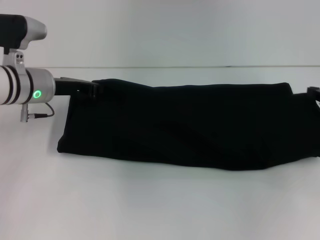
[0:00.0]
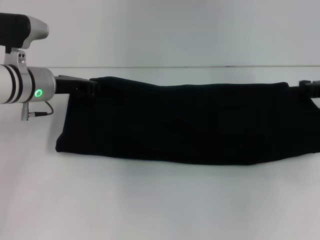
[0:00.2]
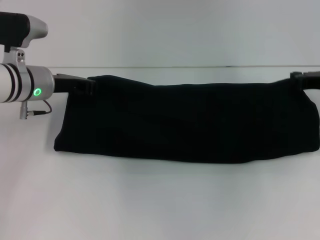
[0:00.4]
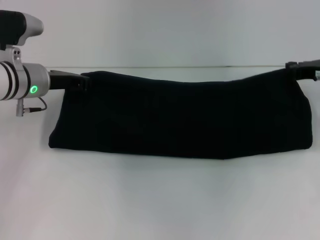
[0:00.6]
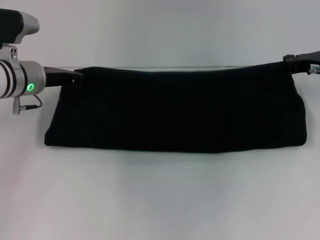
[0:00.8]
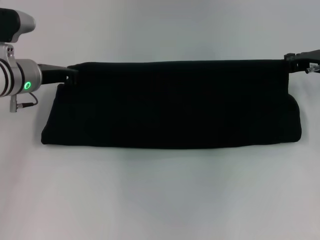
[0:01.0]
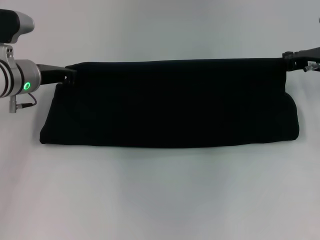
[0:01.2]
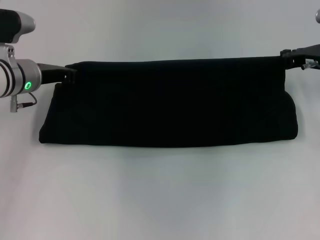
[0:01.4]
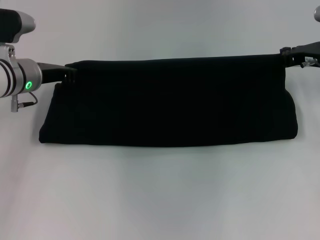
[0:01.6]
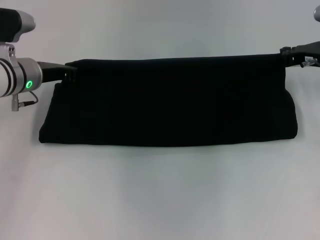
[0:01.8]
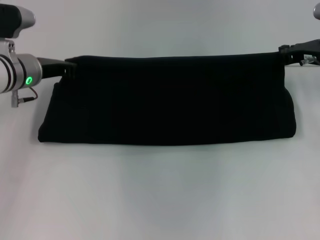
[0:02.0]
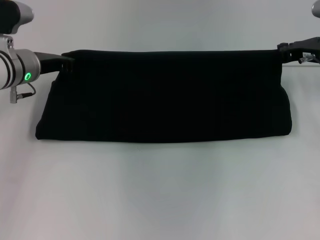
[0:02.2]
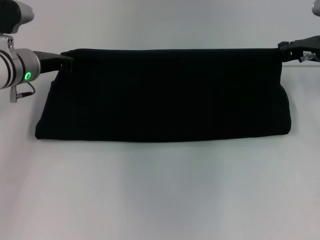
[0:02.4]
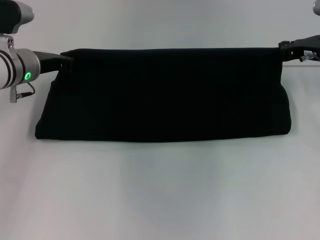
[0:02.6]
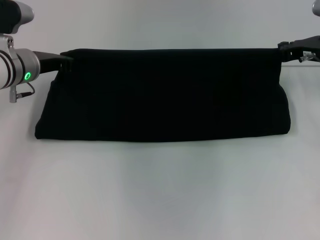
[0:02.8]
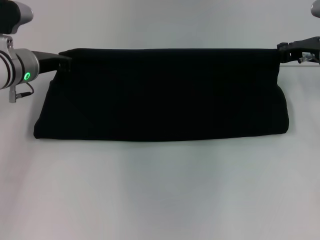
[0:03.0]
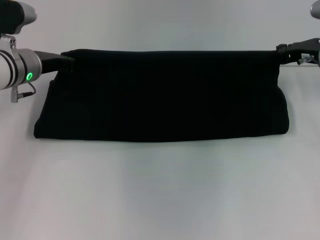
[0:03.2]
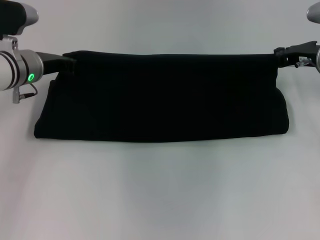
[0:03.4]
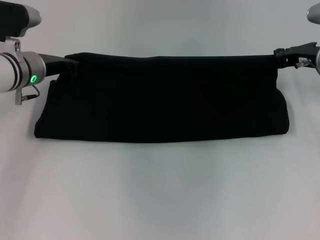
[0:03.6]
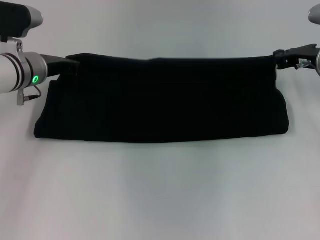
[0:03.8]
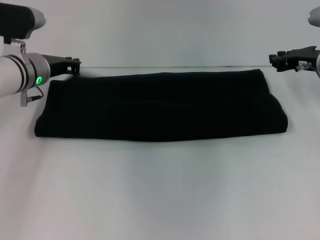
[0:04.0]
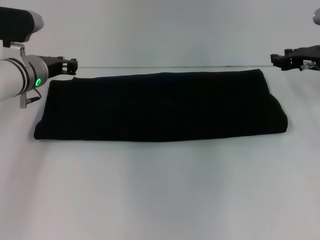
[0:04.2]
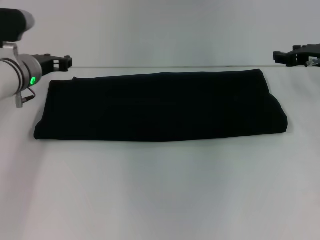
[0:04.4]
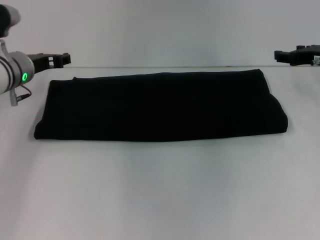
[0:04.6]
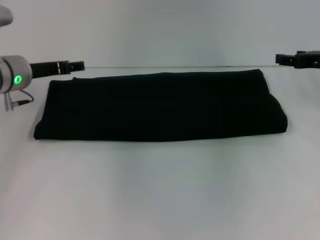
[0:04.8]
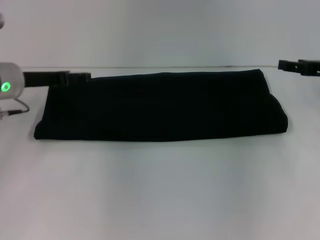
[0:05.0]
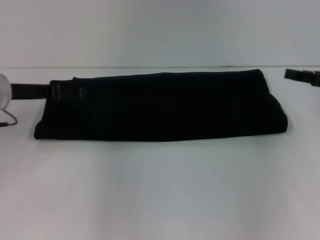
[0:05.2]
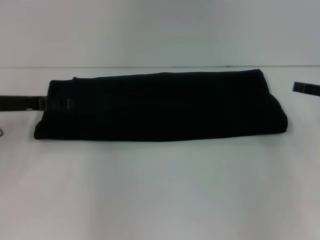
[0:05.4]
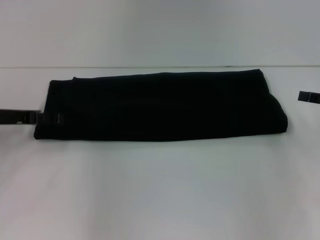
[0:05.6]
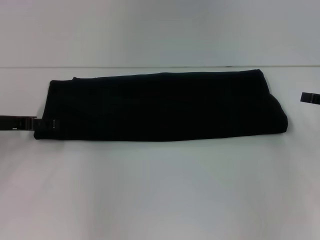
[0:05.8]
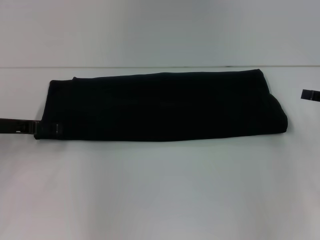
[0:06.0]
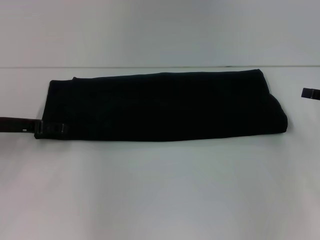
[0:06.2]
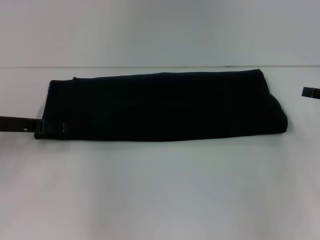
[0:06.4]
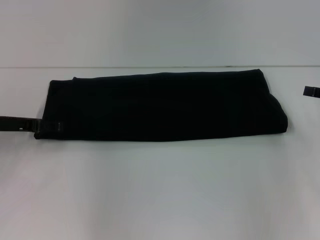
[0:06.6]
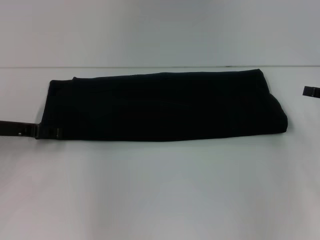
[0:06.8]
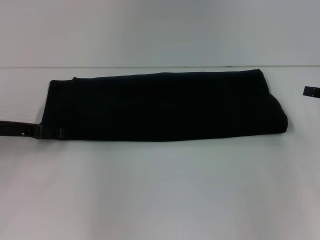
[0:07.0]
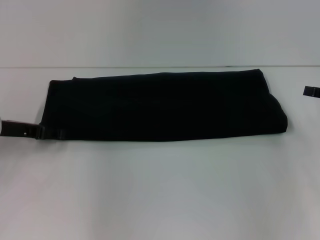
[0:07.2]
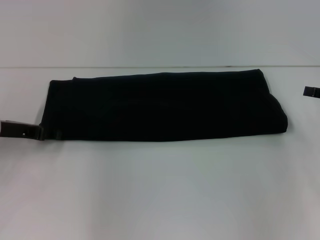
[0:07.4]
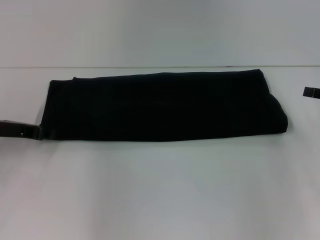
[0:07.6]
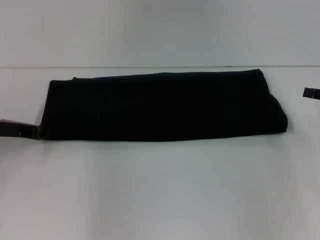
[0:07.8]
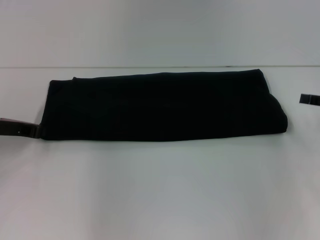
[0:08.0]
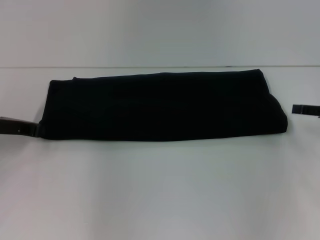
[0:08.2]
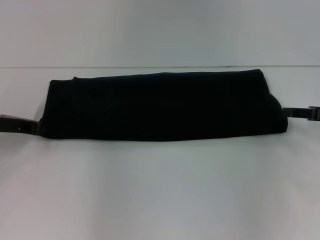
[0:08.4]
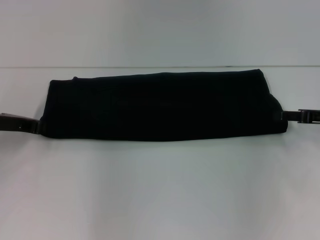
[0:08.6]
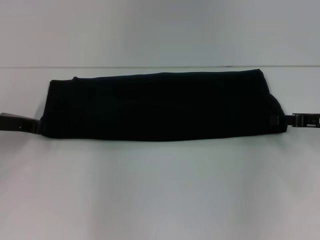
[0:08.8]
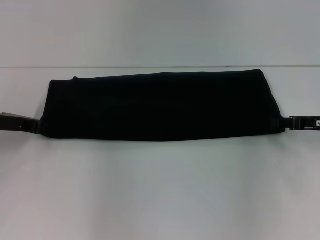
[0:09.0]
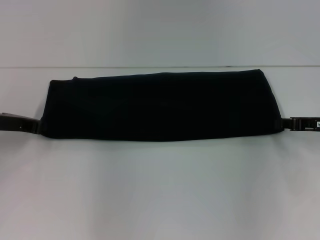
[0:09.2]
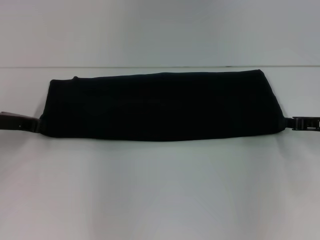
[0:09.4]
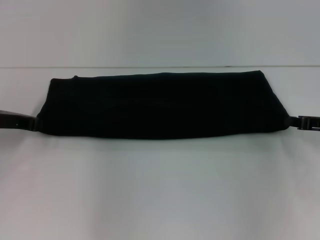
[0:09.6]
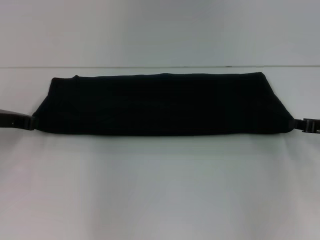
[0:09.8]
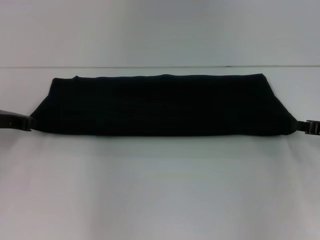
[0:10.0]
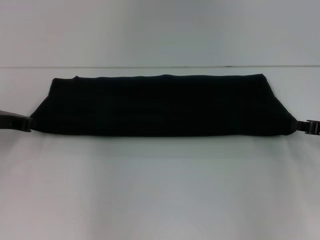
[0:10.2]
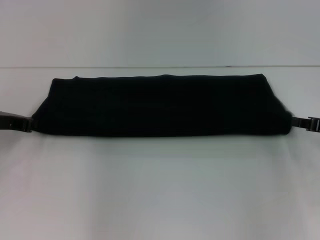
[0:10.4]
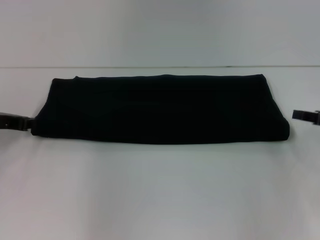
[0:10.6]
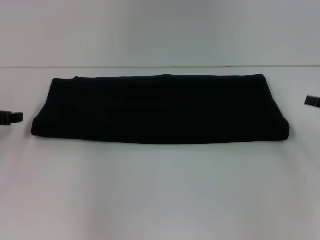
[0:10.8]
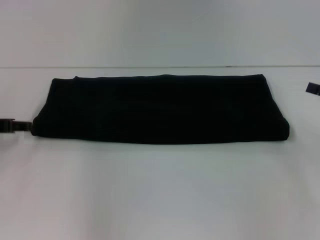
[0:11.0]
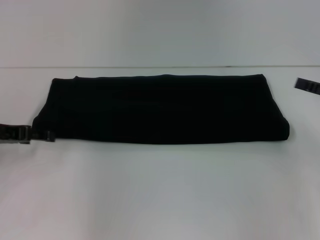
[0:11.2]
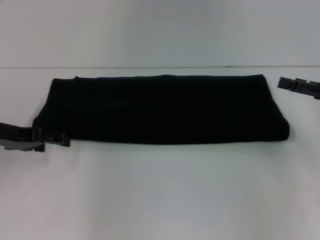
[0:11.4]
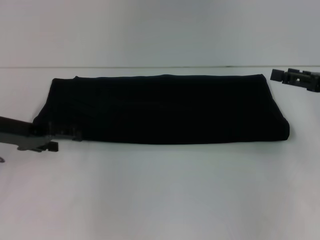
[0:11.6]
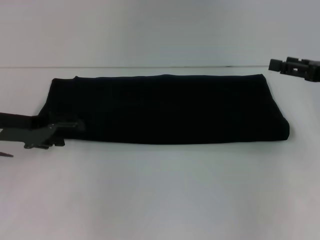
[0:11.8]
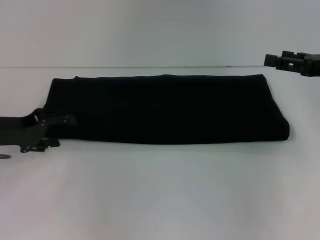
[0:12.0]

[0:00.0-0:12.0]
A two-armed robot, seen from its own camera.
Step, 0:00.0 to 0:04.0: Fold the clothes with your right hand.
0:00.0 to 0:01.6: The right gripper travels to the left and forward by approximately 10 cm.
0:01.6 to 0:03.0: The two grippers keep their place.
0:03.0 to 0:04.4: The right gripper opens.
0:04.4 to 0:06.0: The right gripper heads backward and to the right, covering approximately 15 cm; the left gripper moves backward and to the left, about 10 cm, and opens up.
0:07.6 to 0:09.0: The right gripper is displaced to the left by approximately 5 cm. The left gripper closes.
0:09.0 to 0:10.4: The right gripper closes up.
0:10.4 to 0:12.0: The left gripper opens its fingers; the right gripper travels upward by about 10 cm, and opens up.

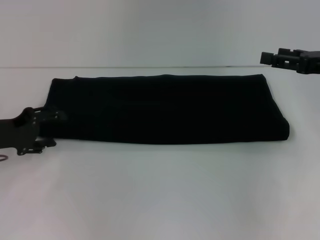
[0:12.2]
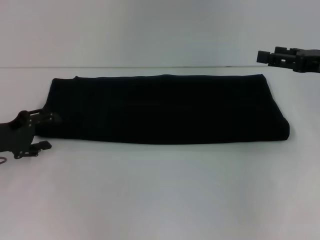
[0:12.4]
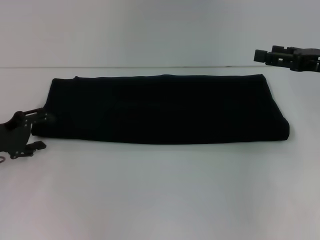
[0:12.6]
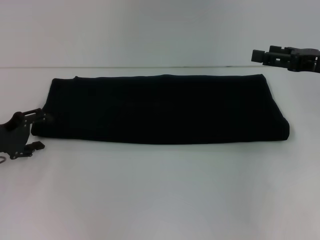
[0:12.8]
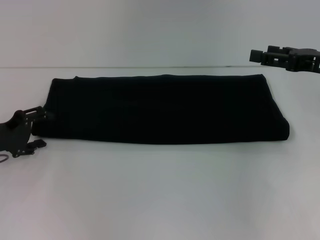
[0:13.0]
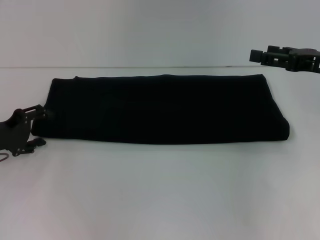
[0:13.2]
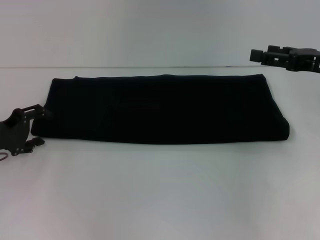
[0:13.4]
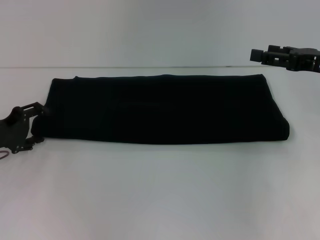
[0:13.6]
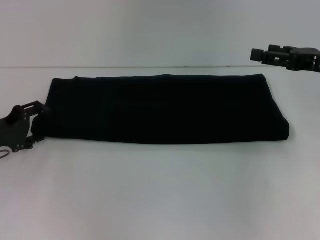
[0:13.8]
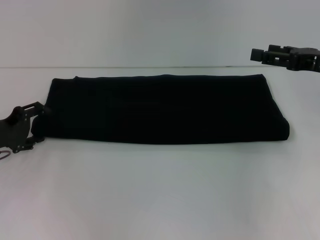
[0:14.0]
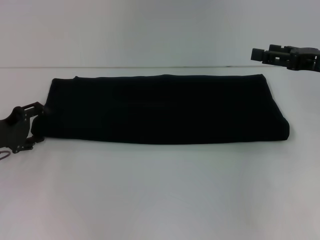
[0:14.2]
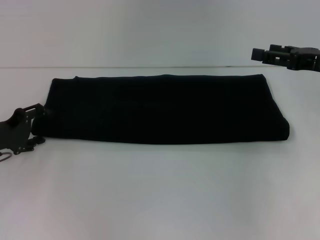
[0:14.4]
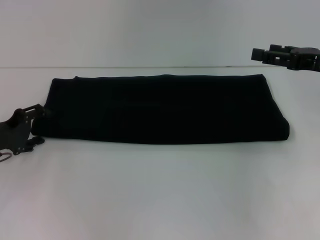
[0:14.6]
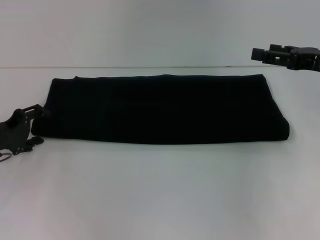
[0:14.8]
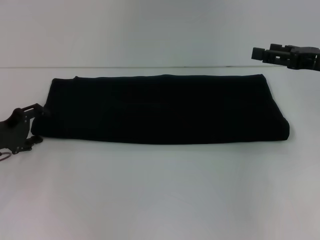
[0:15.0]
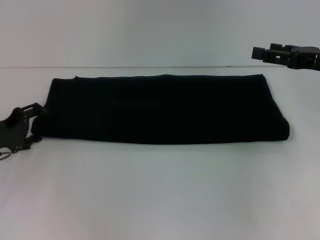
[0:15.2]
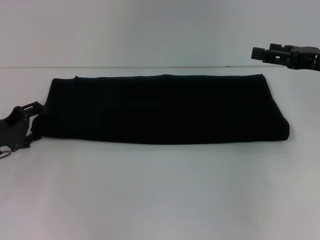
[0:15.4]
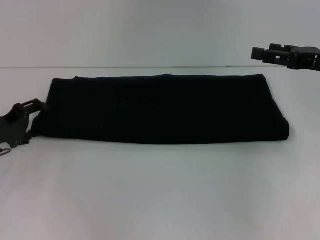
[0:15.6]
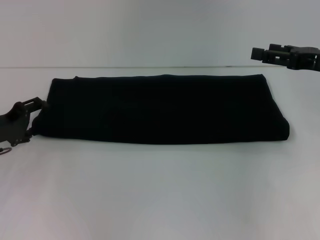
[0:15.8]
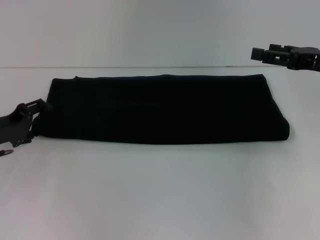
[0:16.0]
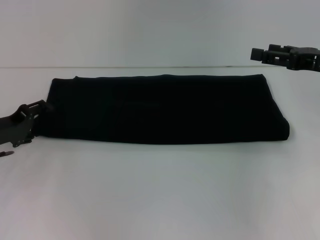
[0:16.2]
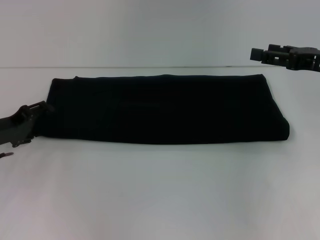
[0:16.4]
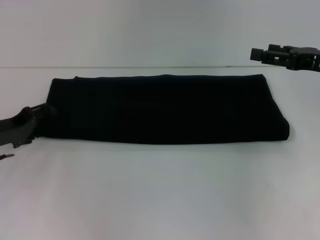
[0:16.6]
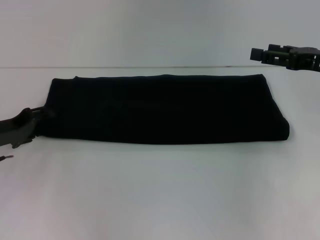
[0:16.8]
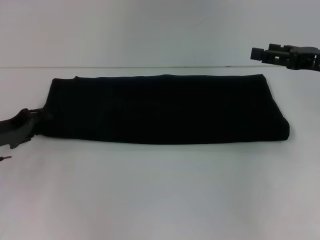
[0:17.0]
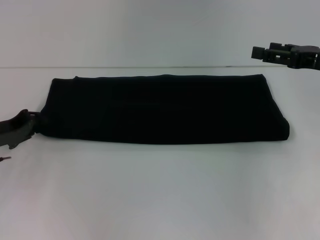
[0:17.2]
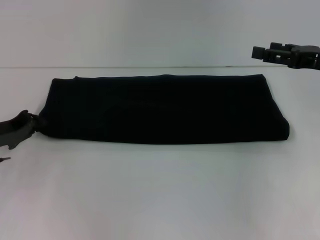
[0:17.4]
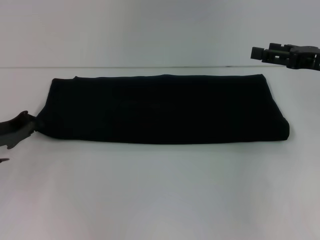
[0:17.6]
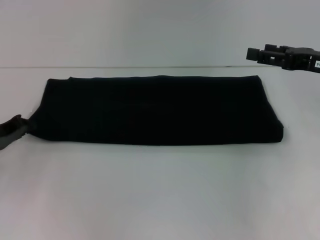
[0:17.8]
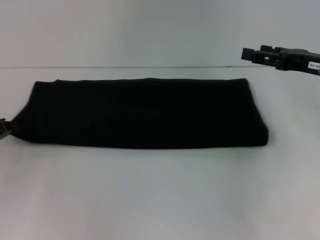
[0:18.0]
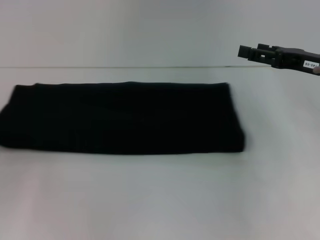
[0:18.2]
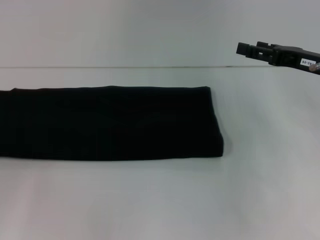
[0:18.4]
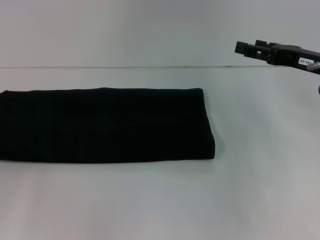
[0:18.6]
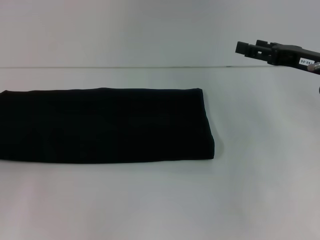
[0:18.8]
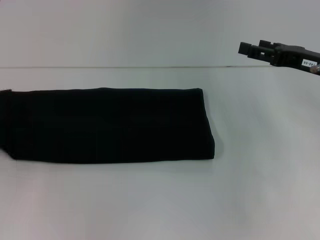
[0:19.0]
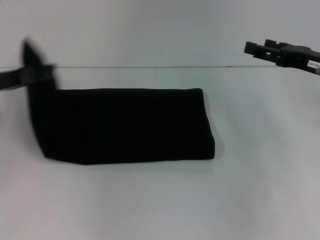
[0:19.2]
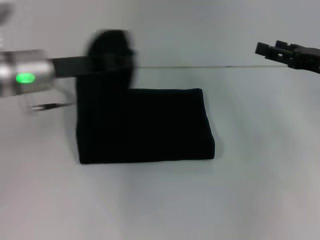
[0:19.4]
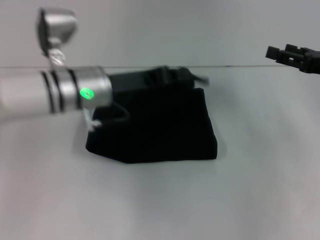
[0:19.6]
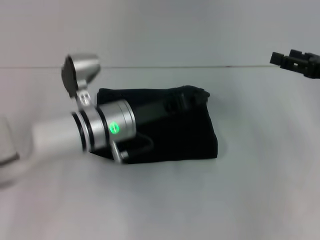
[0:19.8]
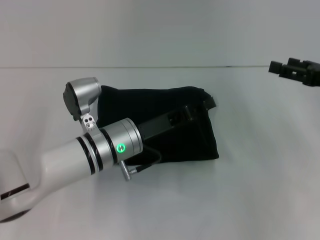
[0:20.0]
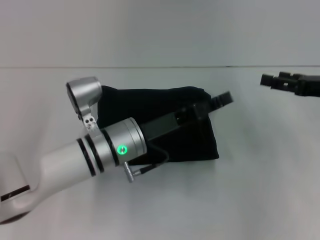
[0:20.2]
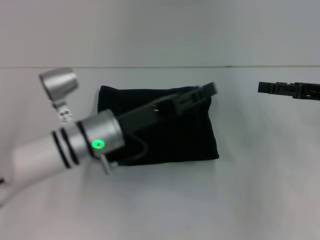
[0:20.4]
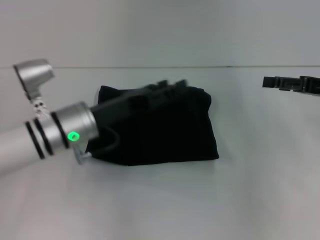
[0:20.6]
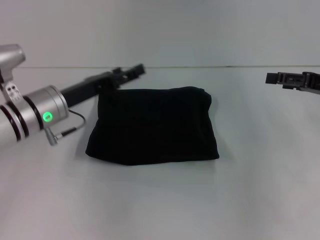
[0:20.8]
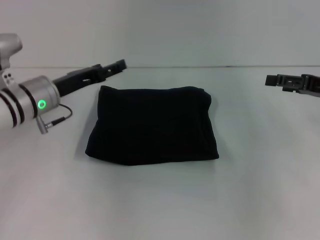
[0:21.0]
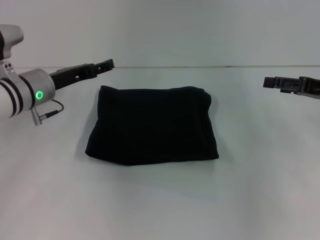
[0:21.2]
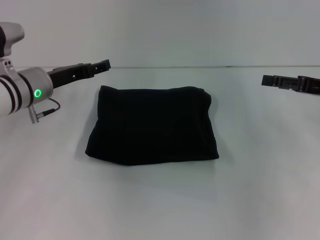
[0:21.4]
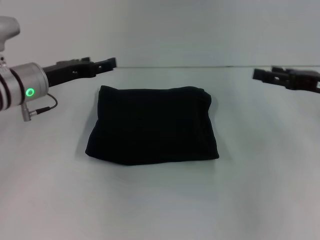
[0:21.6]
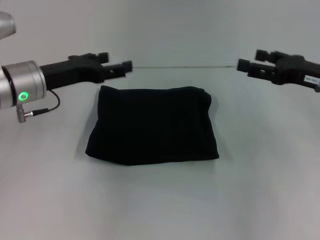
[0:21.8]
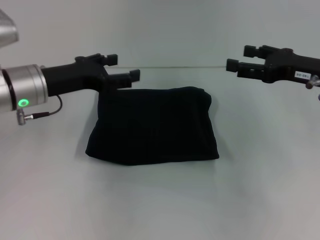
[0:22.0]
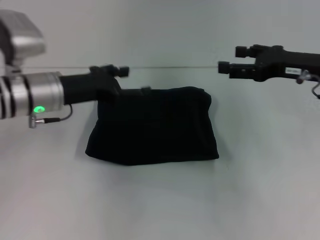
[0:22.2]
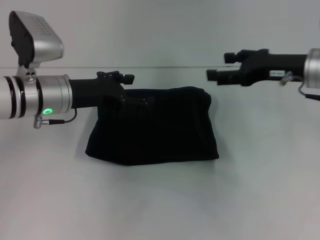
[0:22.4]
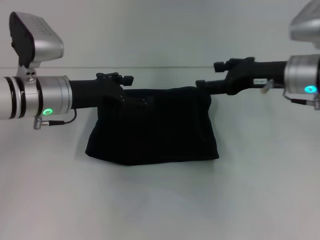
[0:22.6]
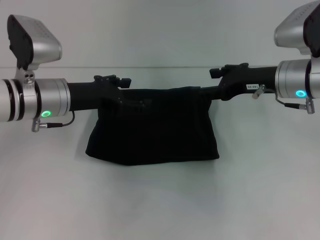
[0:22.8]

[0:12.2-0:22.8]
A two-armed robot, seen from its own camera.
Step, 0:12.2 to 0:20.0: Fold the clothes with your left hand.
0:12.2 to 0:13.8: The grippers move only a little.
0:13.8 to 0:15.2: Neither gripper changes place.
0:15.2 to 0:16.8: The grippers move only a little.
0:16.8 to 0:18.2: The left gripper shifts roughly 5 cm to the left, and closes up.
0:18.2 to 0:19.8: The left gripper is displaced to the right by approximately 30 cm. Meanwhile the right gripper changes place by some 5 cm.
0:19.8 to 0:21.2: The left gripper travels to the left and forward by some 15 cm, and opens.
0:21.2 to 0:22.8: The right gripper is displaced to the left by approximately 10 cm.
